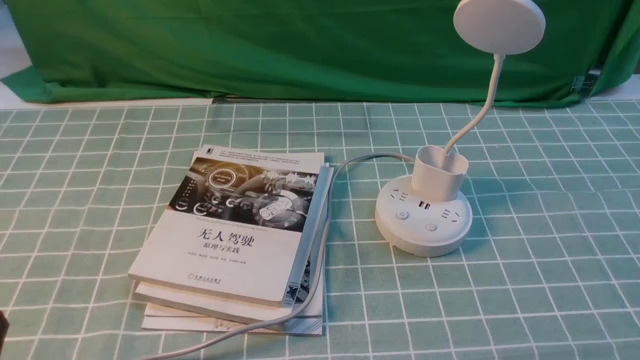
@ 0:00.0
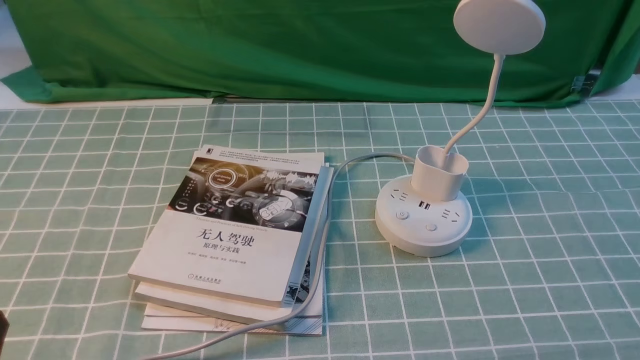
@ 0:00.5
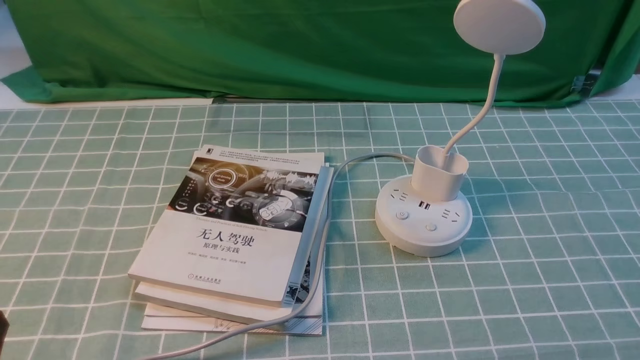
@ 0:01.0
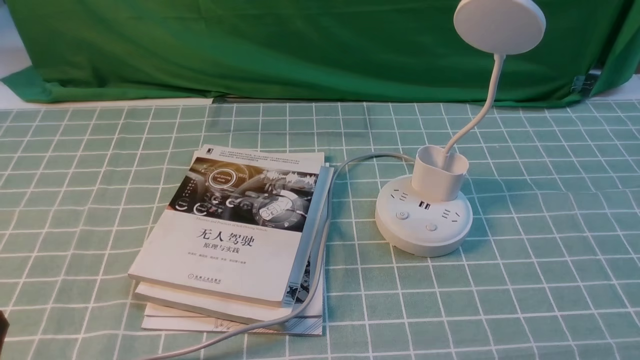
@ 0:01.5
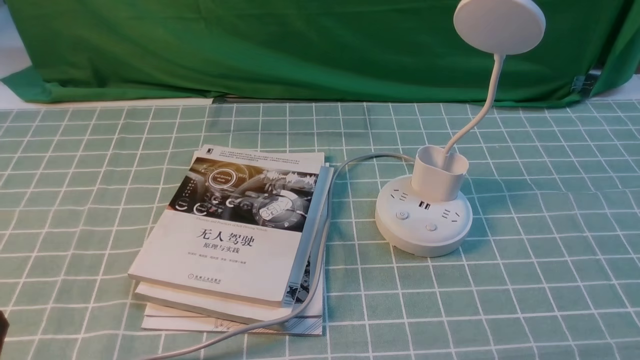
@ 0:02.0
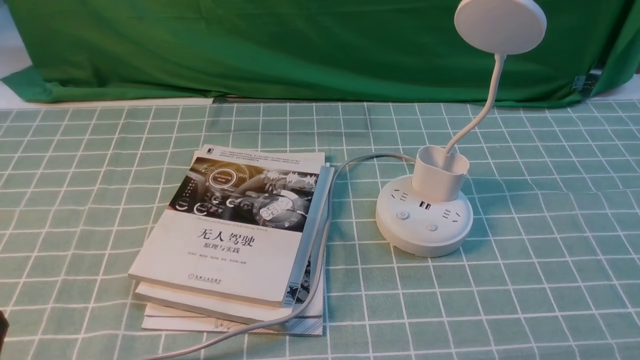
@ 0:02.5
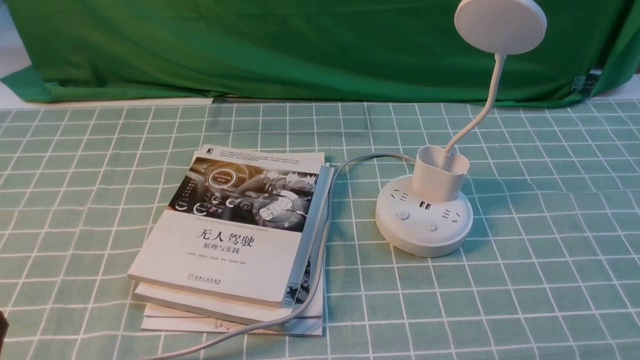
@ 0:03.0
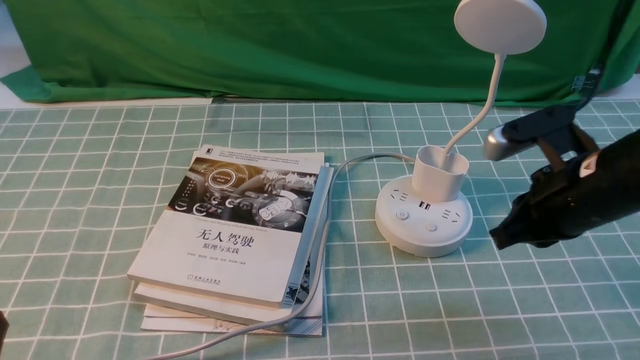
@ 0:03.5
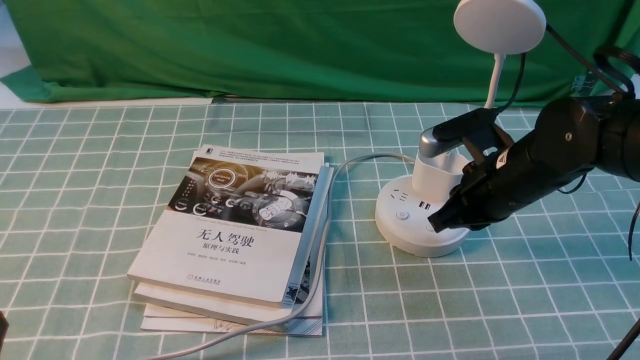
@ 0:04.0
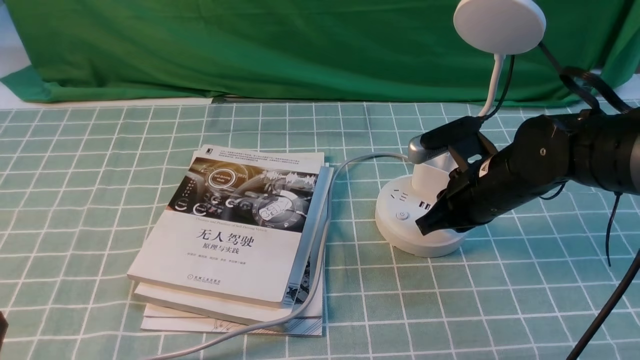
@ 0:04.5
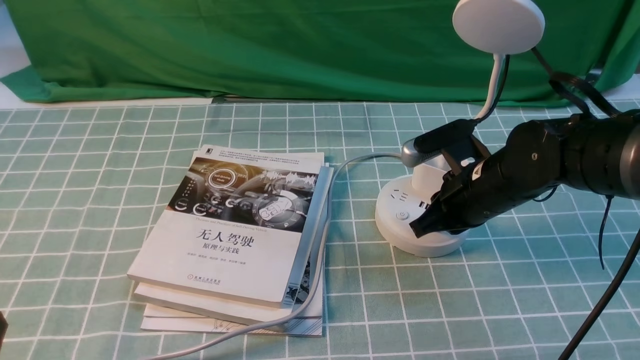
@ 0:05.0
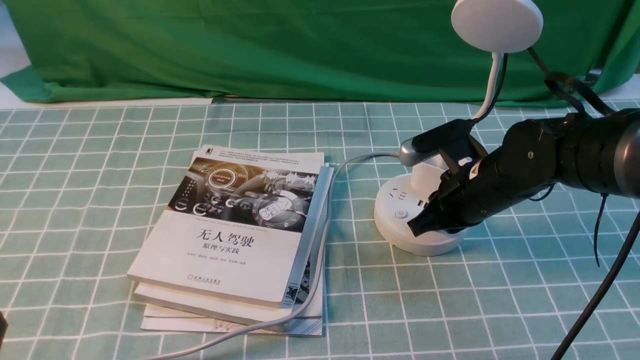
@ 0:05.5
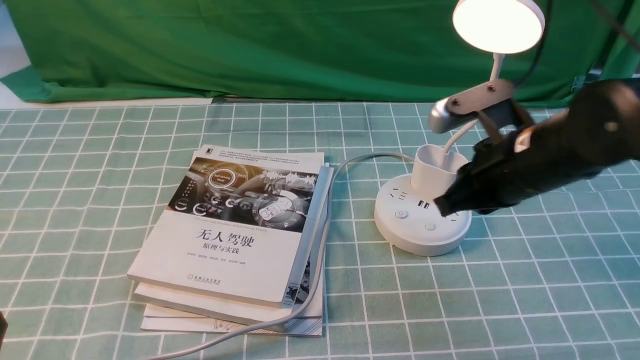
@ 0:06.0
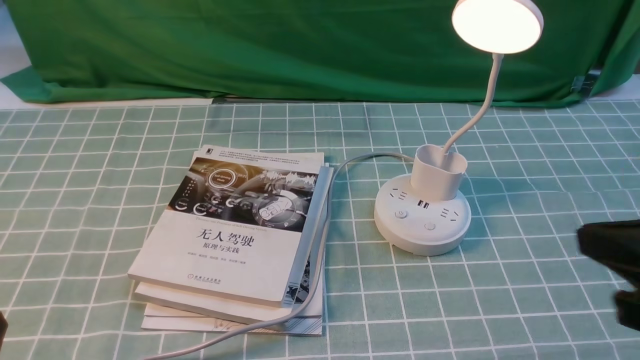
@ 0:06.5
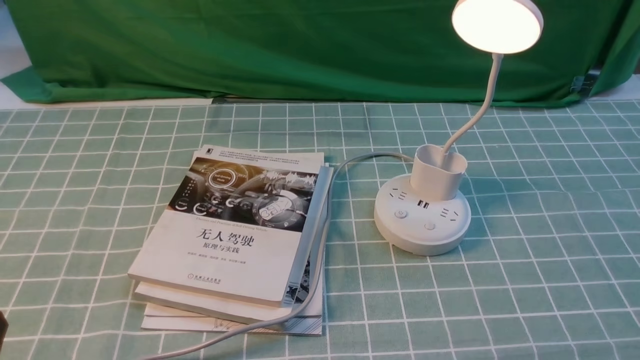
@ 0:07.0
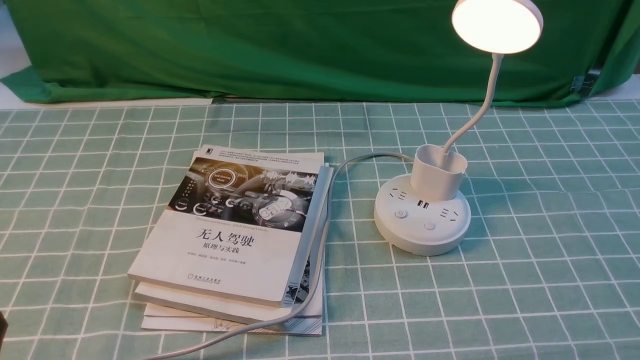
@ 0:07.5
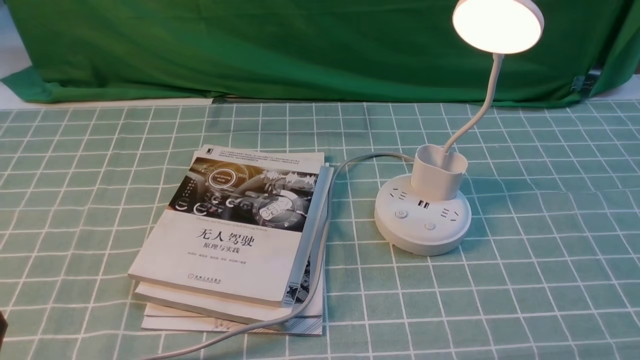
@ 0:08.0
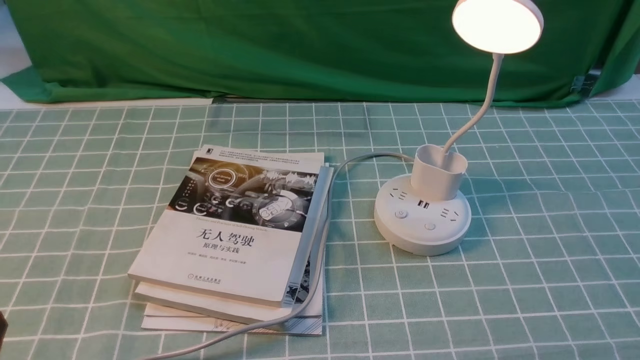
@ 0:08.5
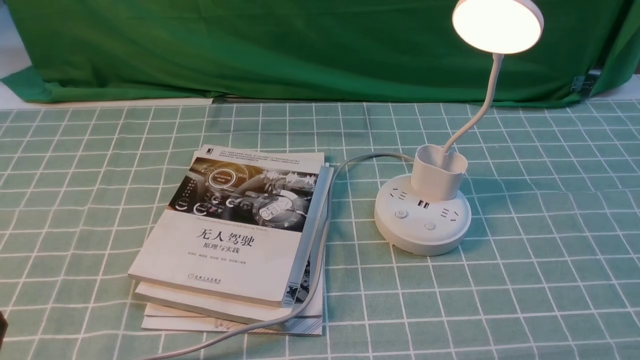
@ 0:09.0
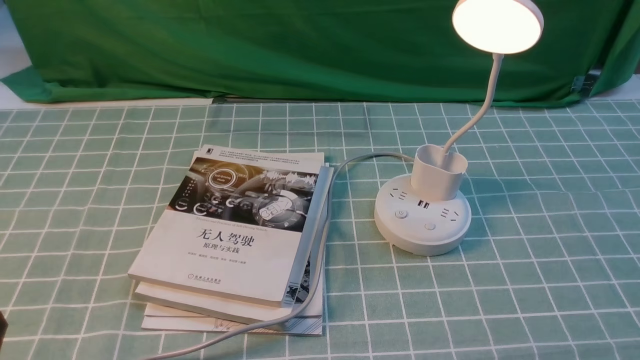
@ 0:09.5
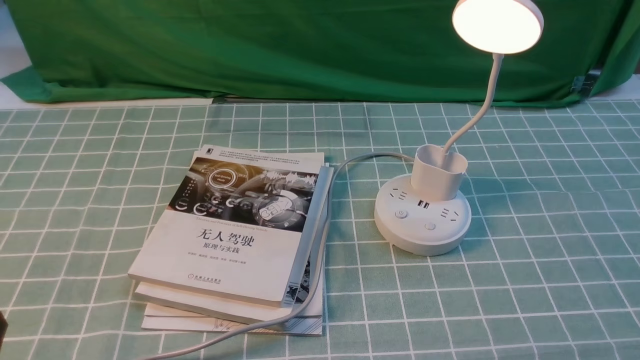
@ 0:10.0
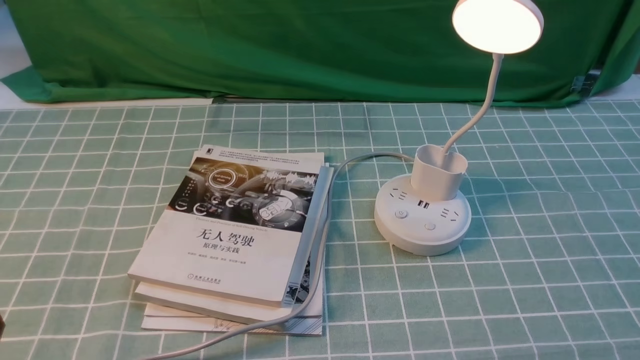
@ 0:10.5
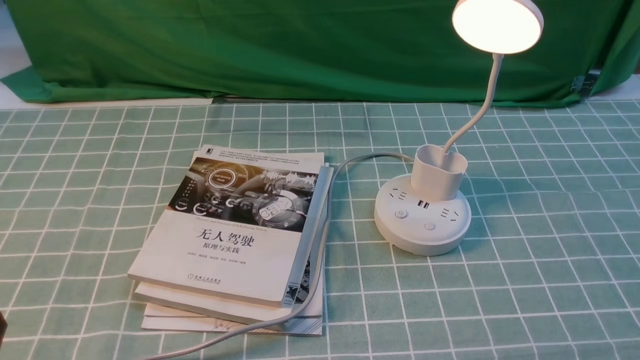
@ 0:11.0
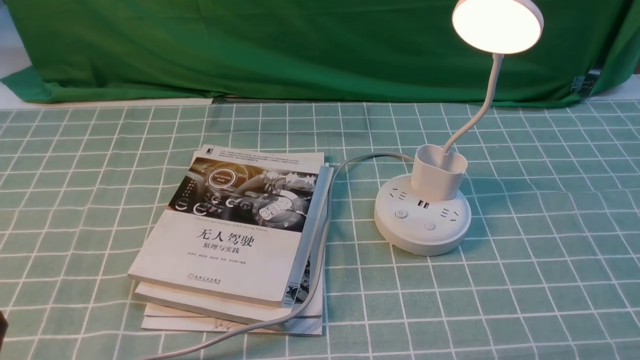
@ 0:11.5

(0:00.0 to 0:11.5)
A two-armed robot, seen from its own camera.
Step, 0:00.0 - 0:05.5: use the right arm to press the button switch on the lamp holder.
0:02.0 - 0:04.0: The right gripper shifts roughly 30 cm forward and to the left, and closes its fingers.
0:04.0 - 0:06.0: The right gripper shifts by roughly 5 cm.
0:06.0 - 0:07.5: The right gripper is displaced backward and to the right by roughly 25 cm, and opens.
0:09.5 - 0:11.5: Both grippers stay about where they are.
